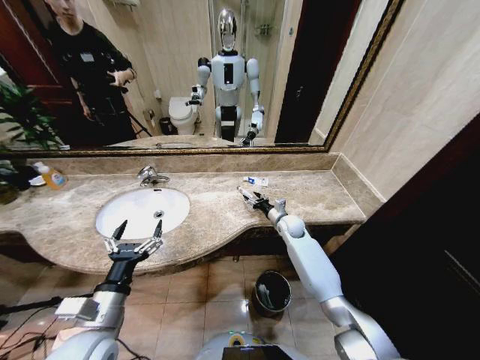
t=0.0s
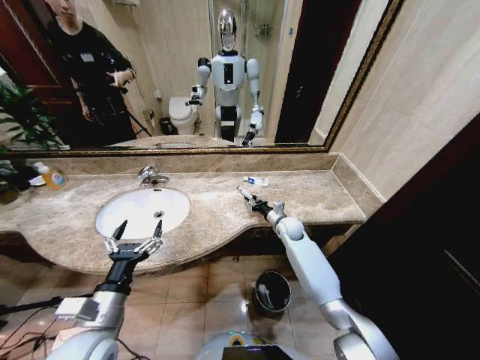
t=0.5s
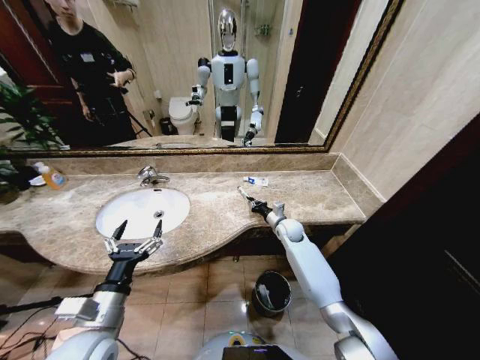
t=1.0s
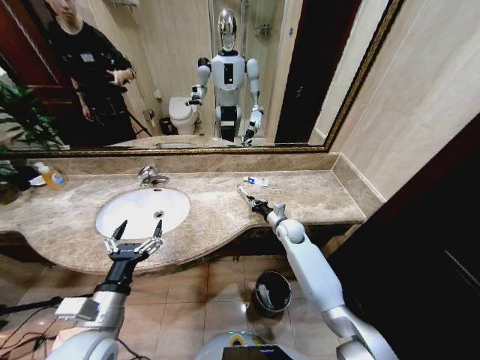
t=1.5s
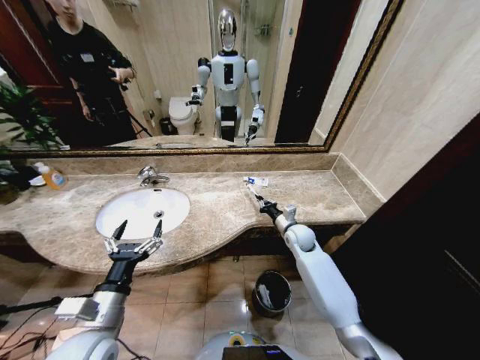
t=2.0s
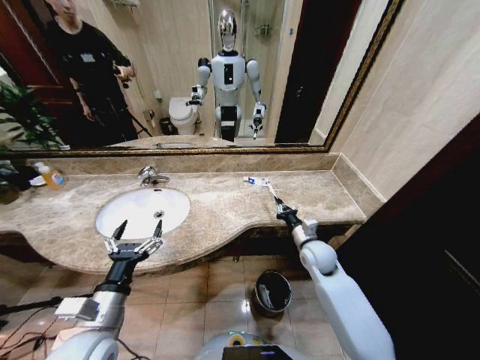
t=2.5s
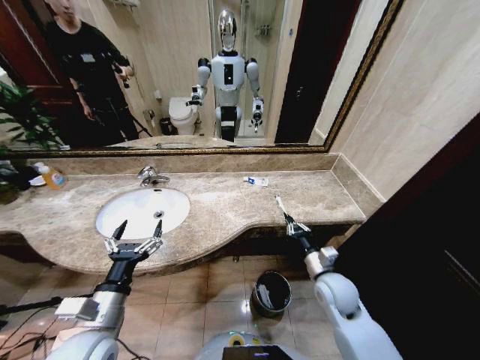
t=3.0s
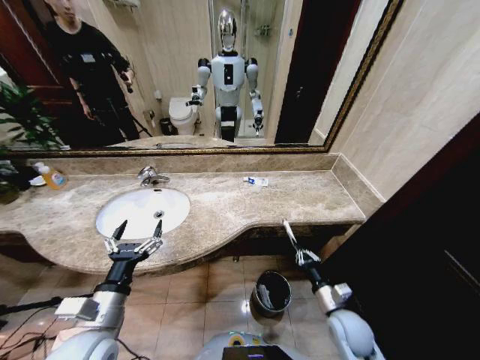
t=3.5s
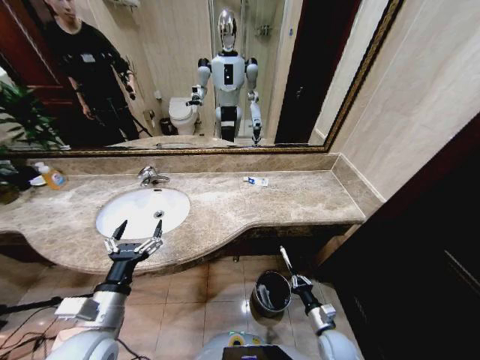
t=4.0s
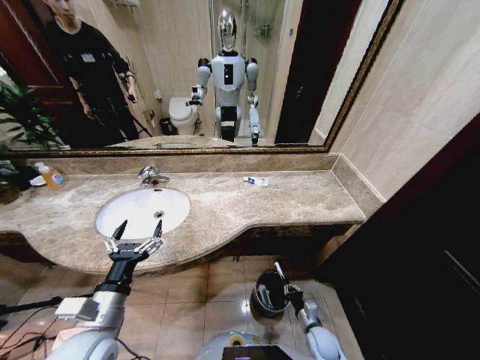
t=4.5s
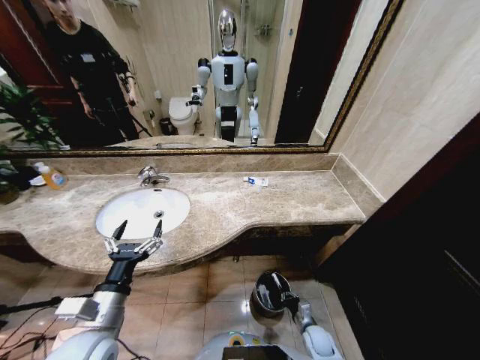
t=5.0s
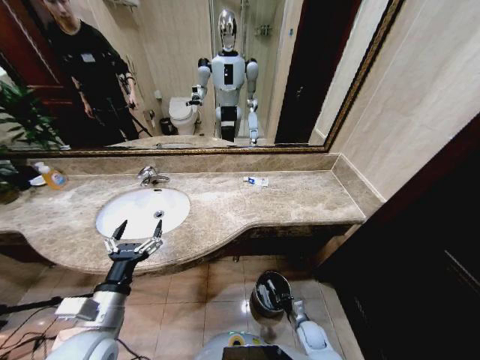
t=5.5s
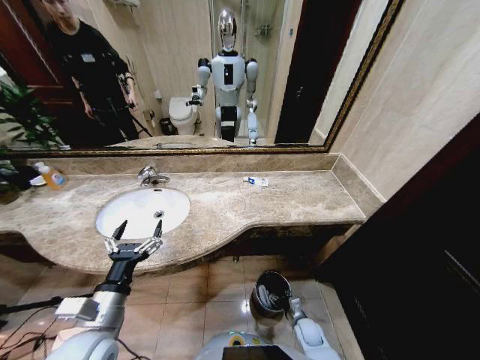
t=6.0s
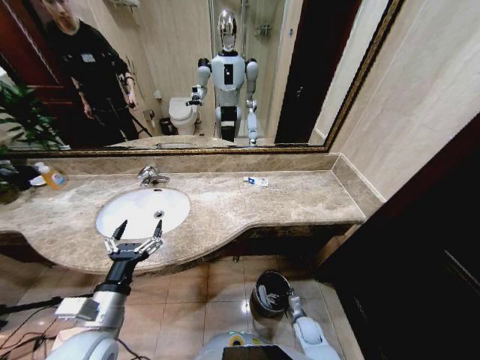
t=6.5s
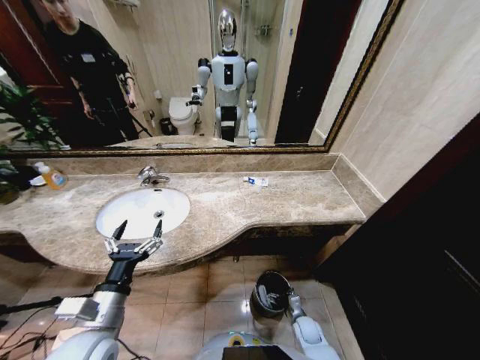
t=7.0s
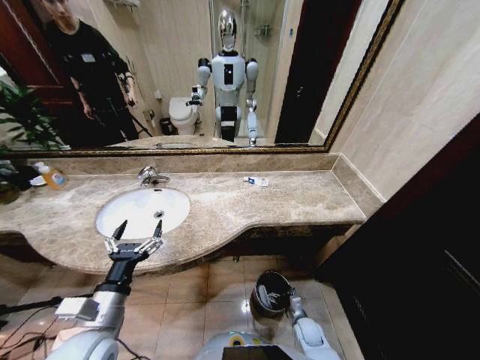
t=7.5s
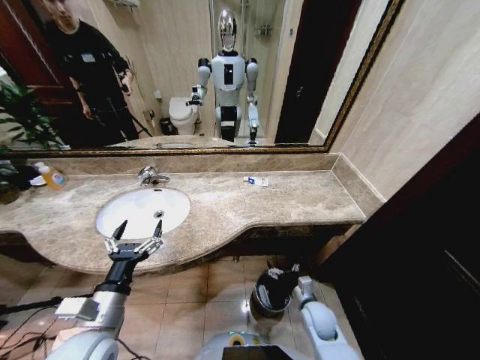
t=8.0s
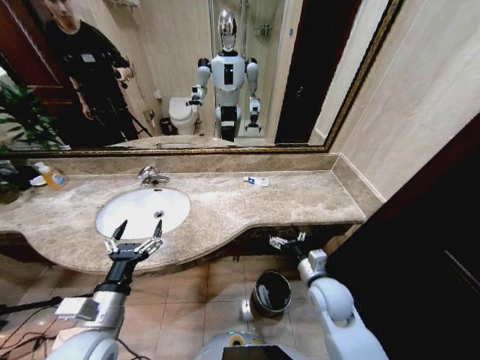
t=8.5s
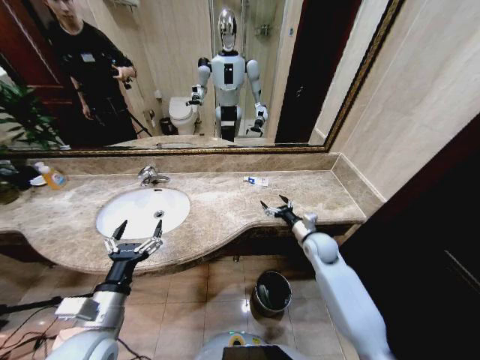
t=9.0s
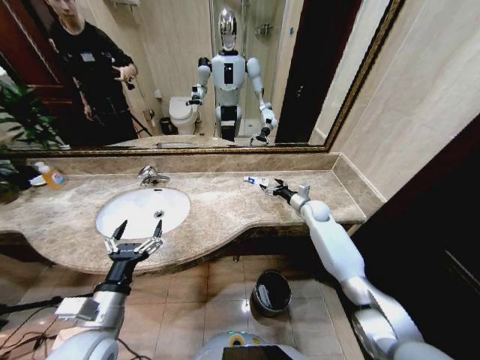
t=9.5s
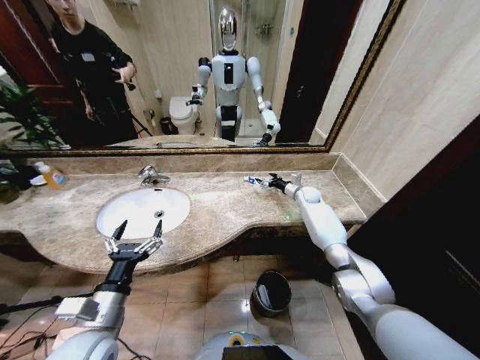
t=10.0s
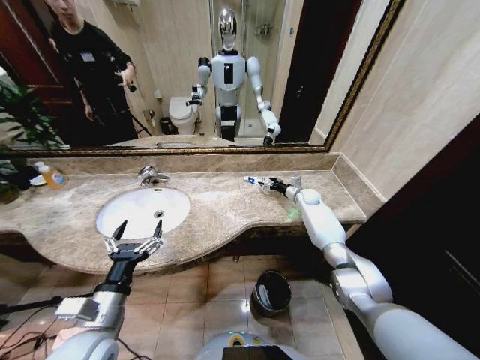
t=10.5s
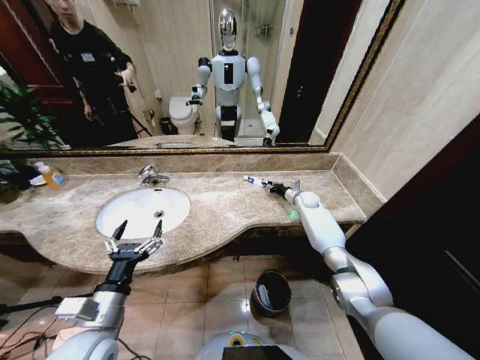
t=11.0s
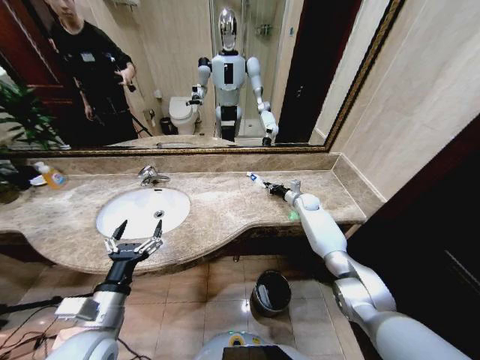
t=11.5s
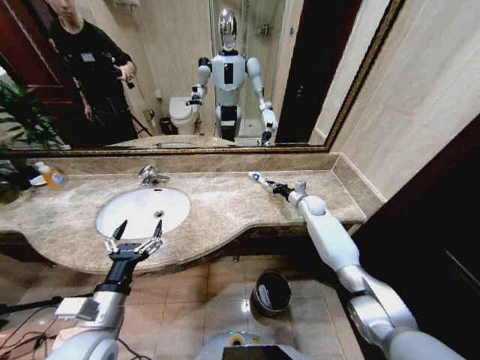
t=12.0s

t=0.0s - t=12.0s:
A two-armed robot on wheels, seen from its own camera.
Task of the whole recording: Pick up the trash from the sink and place it in the trash bin.
t=0.0s - t=2.0s: The right gripper shifts some 5 cm backward, and closes its fingers.
t=2.0s - t=4.0s: The right gripper moves backward and downward, roughly 35 cm.
t=4.0s - t=6.0s: The right gripper moves downward, approximately 10 cm, and opens its fingers.
t=6.0s - t=8.0s: The right gripper travels upward by roughly 15 cm, and opens.
t=8.0s - t=10.0s: The right gripper moves forward and upward, approximately 40 cm.
t=10.0s - t=12.0s: The right gripper is displaced backward by roughly 5 cm, and closes its fingers.

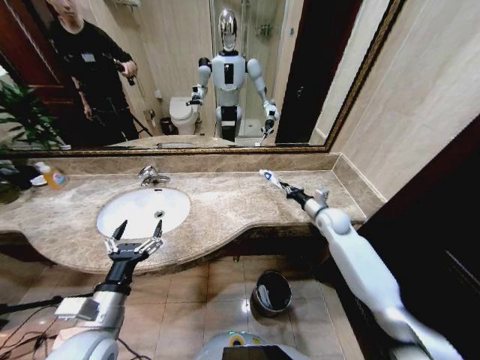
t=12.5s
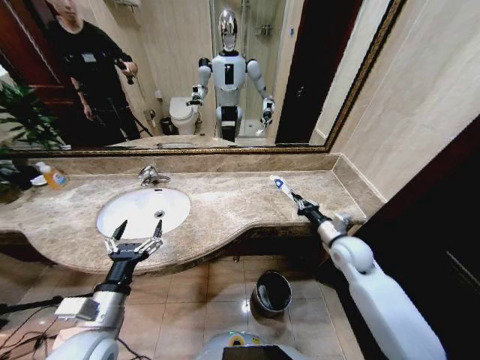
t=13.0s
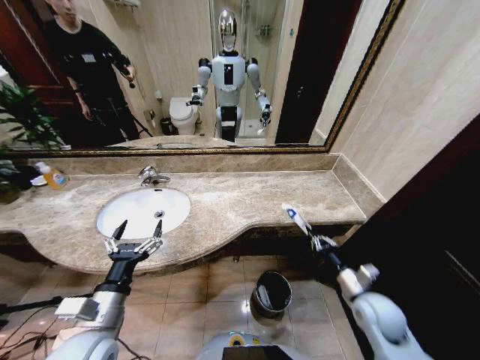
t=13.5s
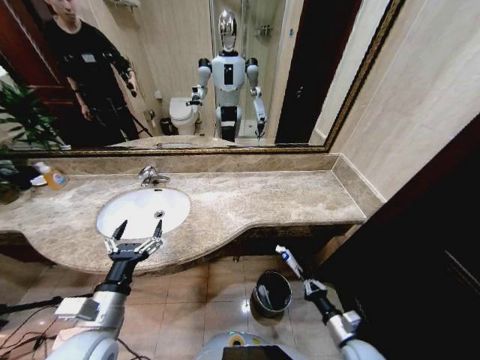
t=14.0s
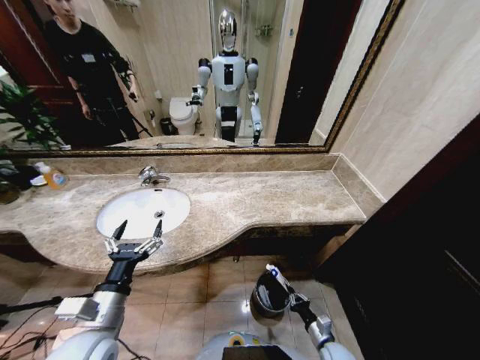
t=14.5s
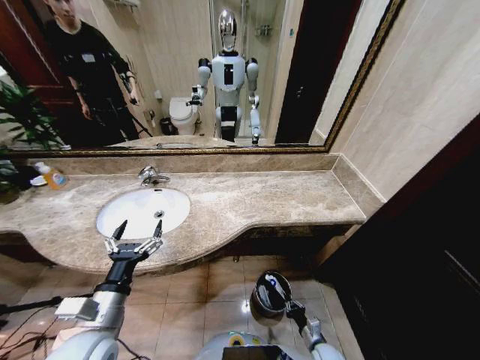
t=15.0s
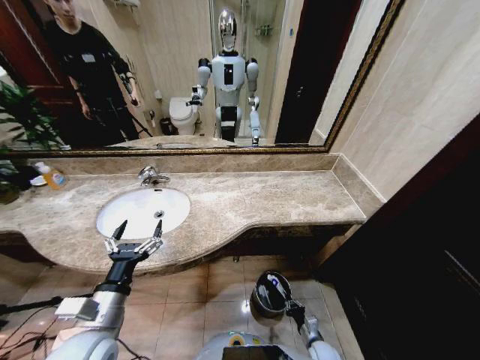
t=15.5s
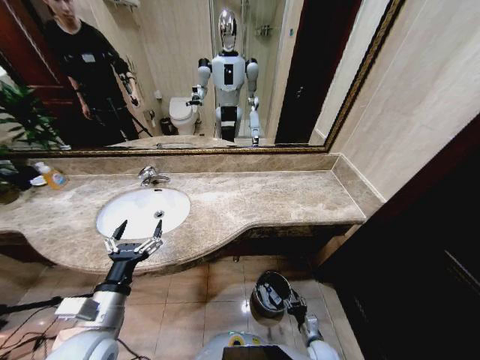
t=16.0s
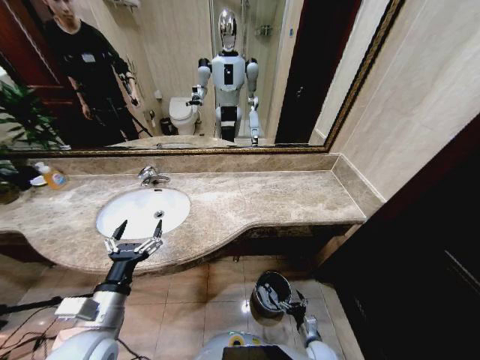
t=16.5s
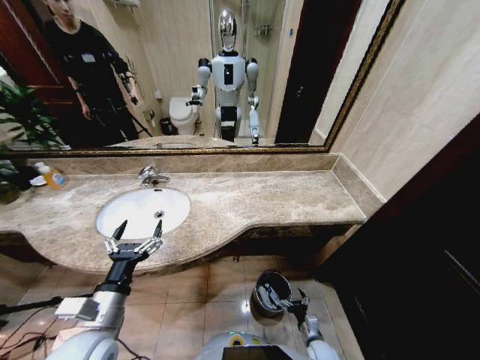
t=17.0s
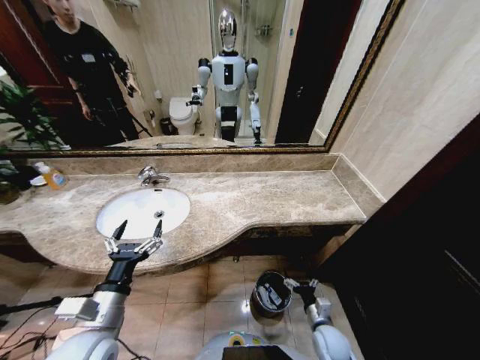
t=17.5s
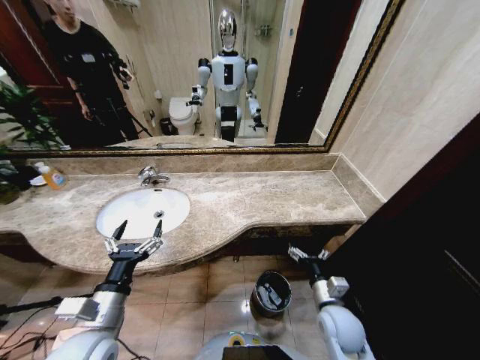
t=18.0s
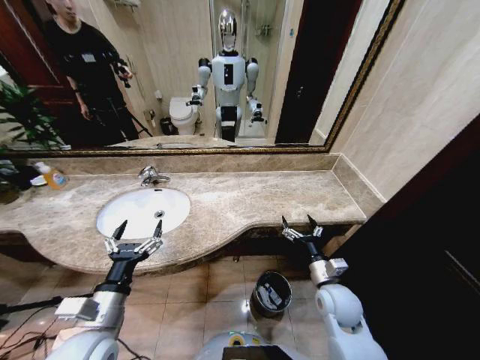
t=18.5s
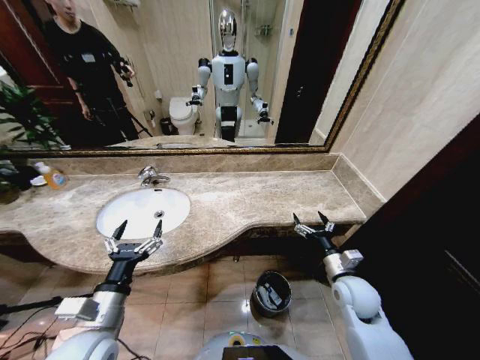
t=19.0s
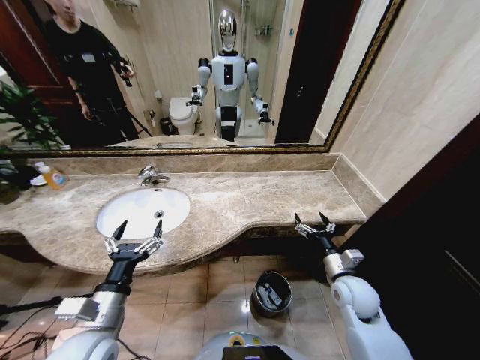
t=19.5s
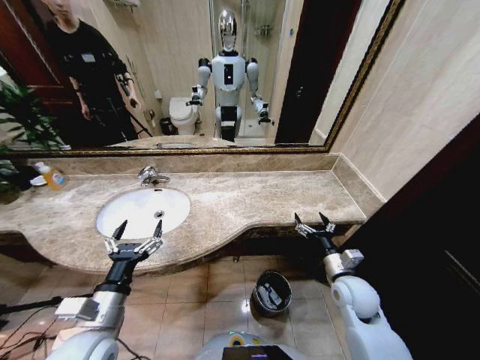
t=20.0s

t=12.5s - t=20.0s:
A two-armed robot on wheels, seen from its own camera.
Task of the whole recording: Pick up the trash from the sink and place it in the trash bin.
t=12.5s - t=14.5s: The right gripper heads backward and downward, covering some 40 cm.
t=14.5s - t=16.5s: The right gripper moves downward, approximately 5 cm, and opens up.
t=16.5s - t=18.0s: The right gripper moves upward, roughly 25 cm.
t=18.0s - t=20.0s: The right gripper shifts some 10 cm forward and to the right.

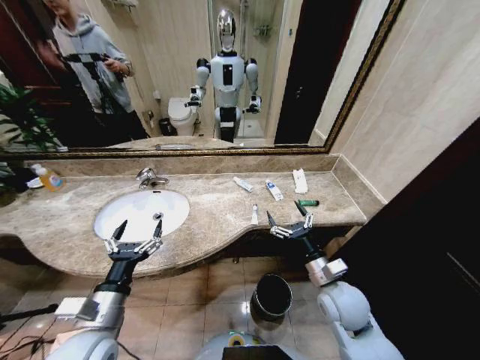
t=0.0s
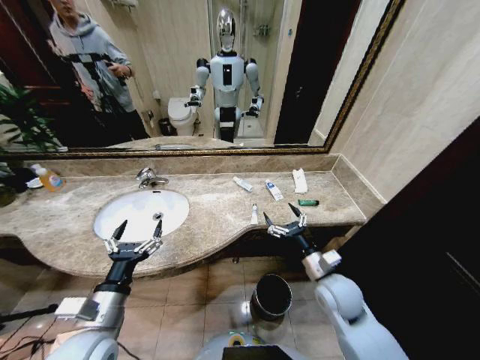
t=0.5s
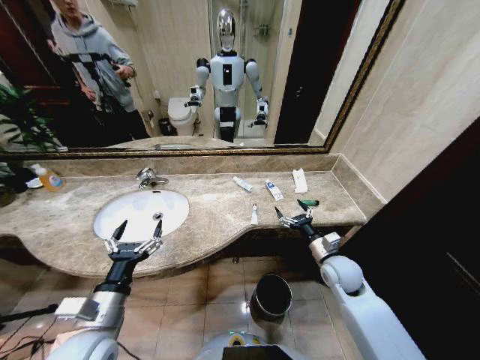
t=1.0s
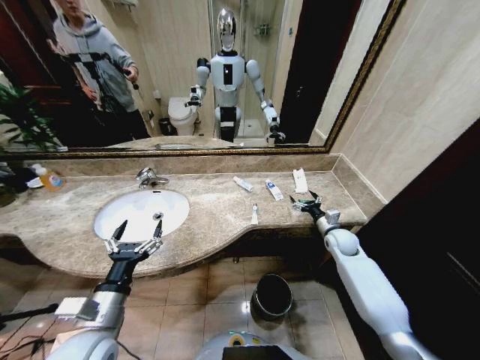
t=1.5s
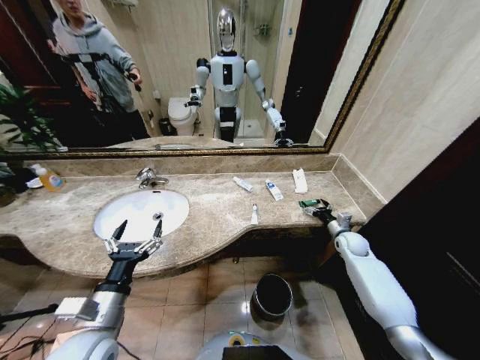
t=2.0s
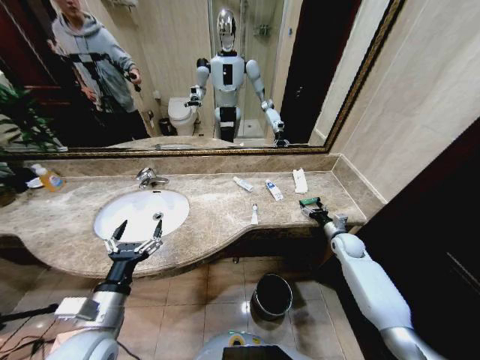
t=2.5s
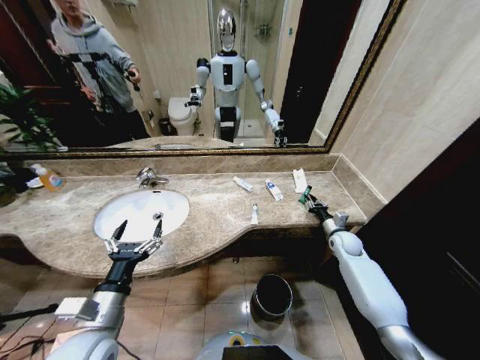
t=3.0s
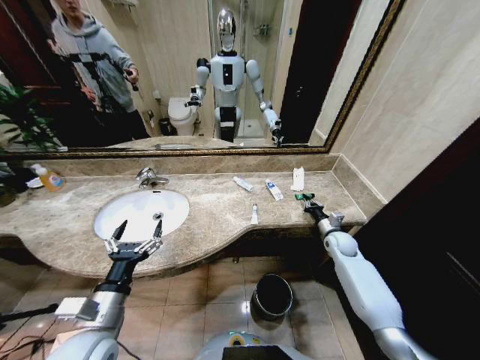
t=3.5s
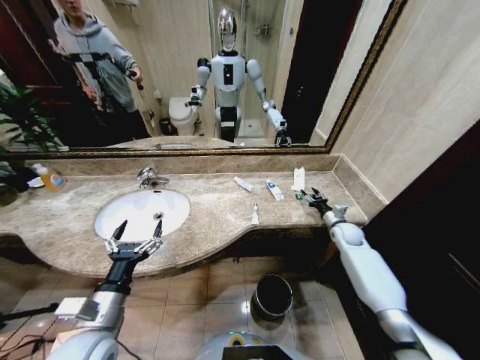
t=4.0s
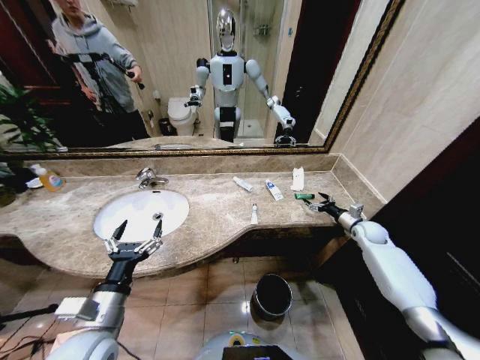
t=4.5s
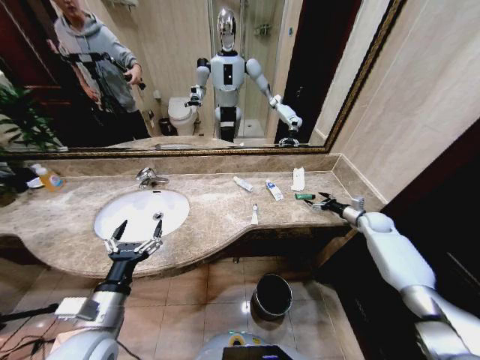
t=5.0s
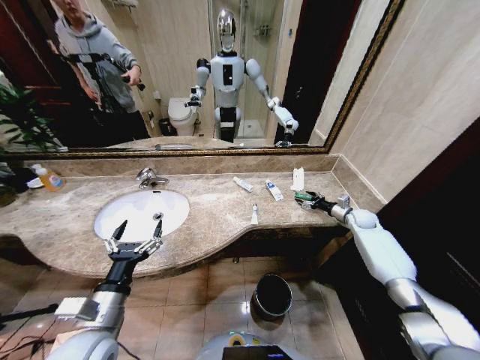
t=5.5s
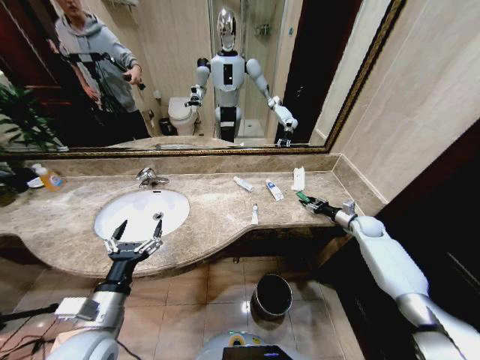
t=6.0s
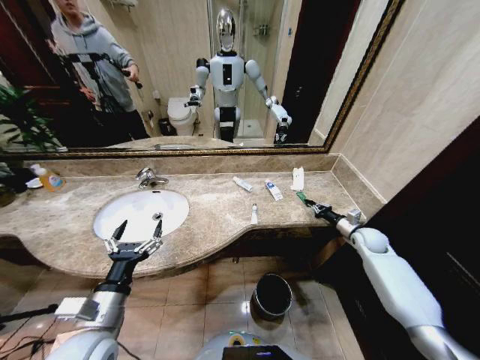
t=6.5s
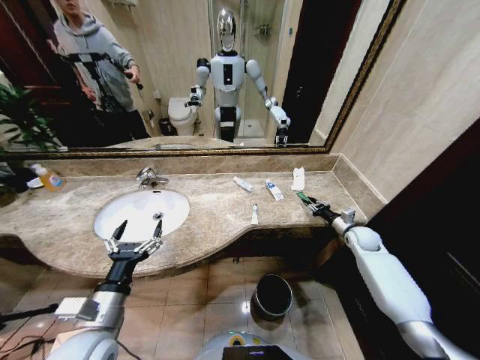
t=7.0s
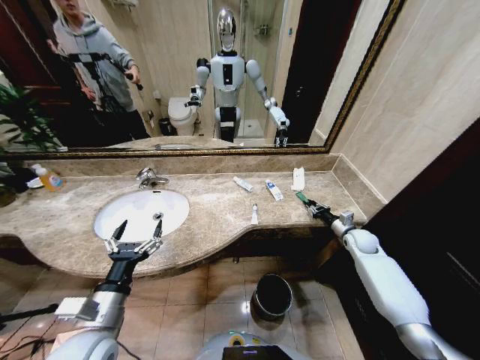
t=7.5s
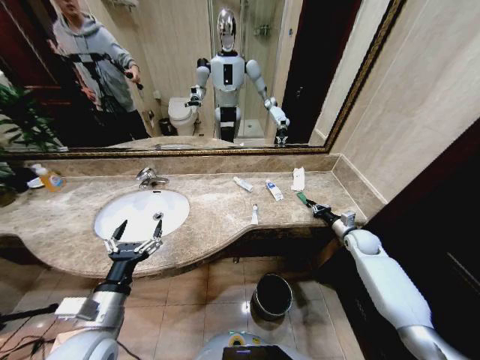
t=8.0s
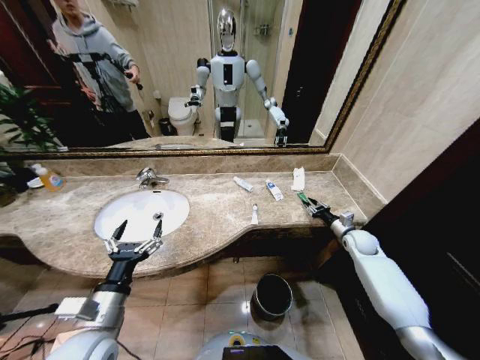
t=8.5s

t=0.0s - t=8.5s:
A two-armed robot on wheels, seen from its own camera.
Task of the whole recording: Pick up the trash from the sink and place it in the trash bin.
t=2.0s - t=4.0s: The right gripper closes.
t=4.0s - t=6.5s: The right gripper heads to the right, covering approximately 5 cm, and closes up.
t=6.5s - t=8.5s: The grippers stay close to where they were, moving slightly.
